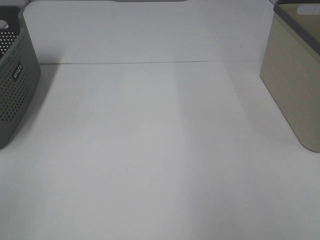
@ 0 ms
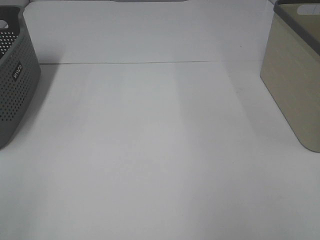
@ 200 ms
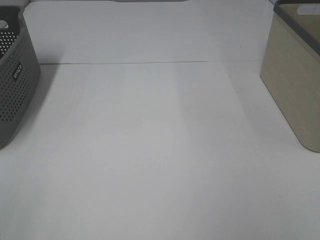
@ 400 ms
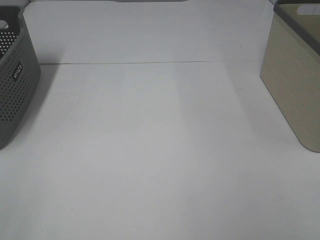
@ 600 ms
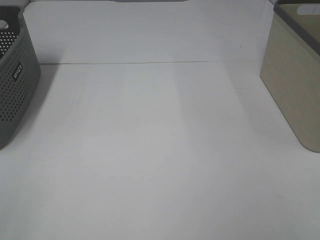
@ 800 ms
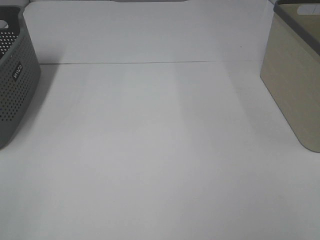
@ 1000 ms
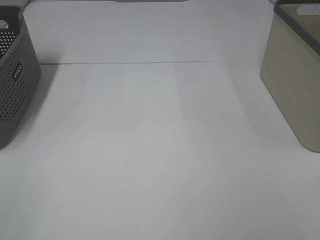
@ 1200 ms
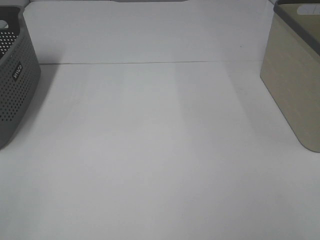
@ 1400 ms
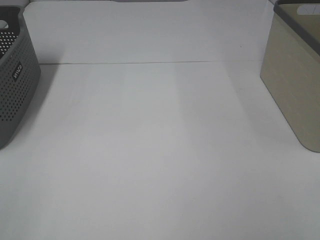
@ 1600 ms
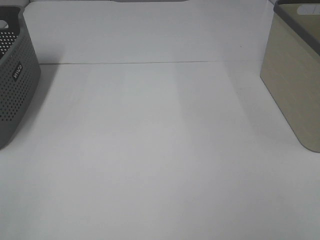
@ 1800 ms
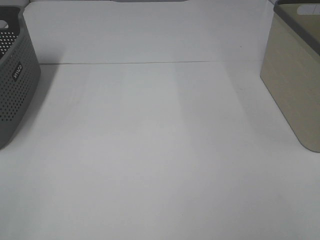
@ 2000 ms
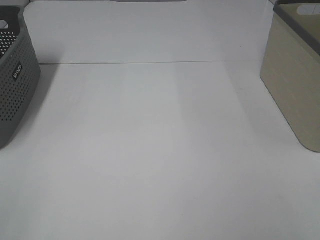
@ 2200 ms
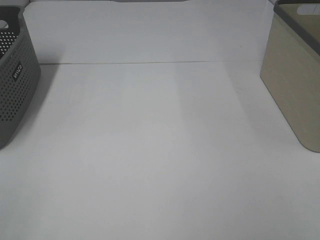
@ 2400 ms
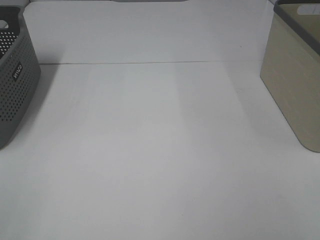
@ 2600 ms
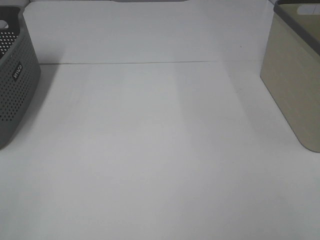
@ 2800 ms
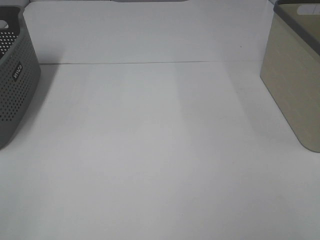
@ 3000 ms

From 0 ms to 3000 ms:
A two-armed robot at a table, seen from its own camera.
From 1600 ms to 3000 ms: Both grippers stay about where they are.

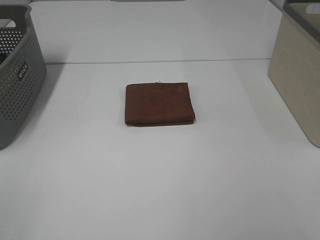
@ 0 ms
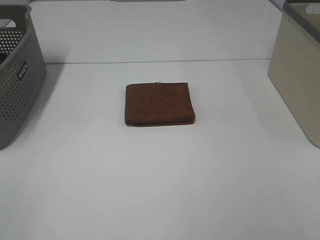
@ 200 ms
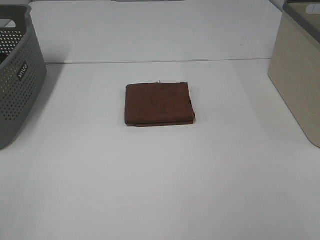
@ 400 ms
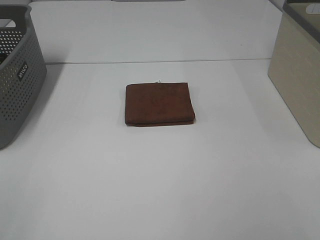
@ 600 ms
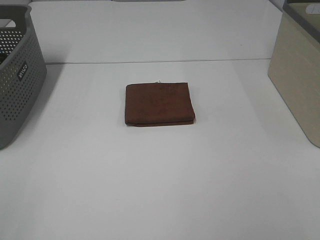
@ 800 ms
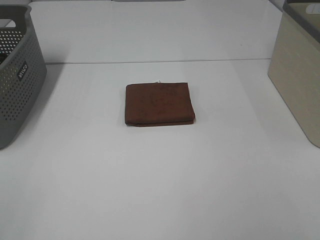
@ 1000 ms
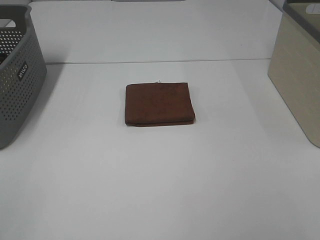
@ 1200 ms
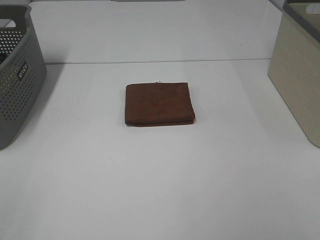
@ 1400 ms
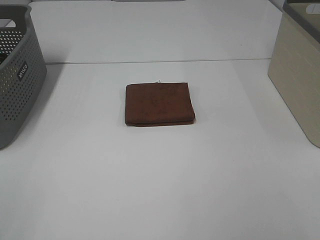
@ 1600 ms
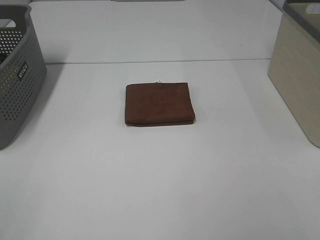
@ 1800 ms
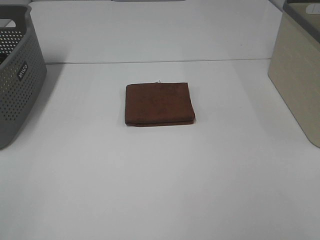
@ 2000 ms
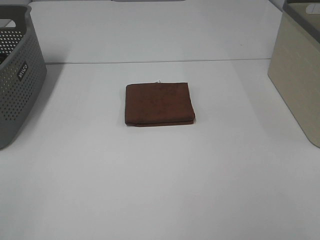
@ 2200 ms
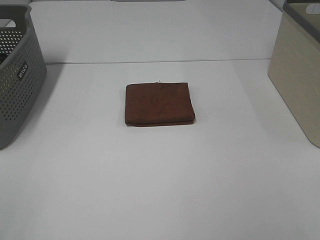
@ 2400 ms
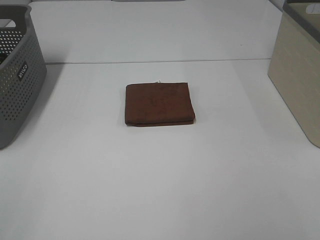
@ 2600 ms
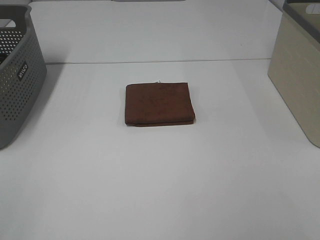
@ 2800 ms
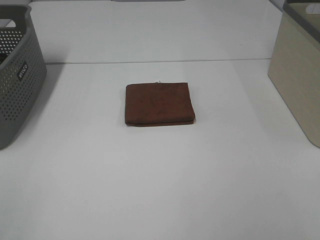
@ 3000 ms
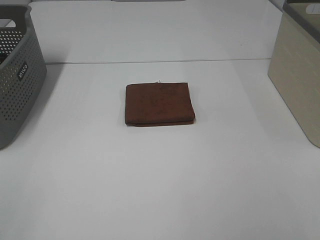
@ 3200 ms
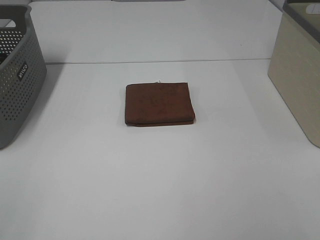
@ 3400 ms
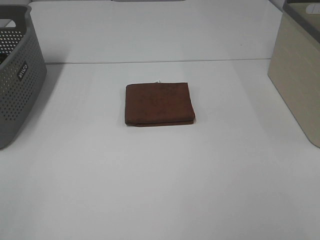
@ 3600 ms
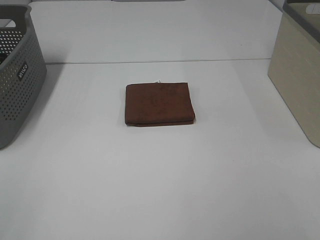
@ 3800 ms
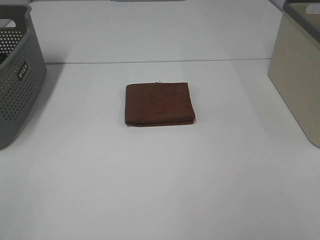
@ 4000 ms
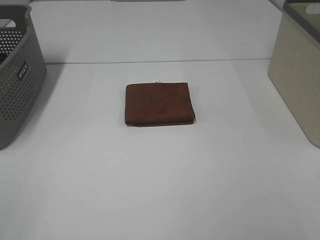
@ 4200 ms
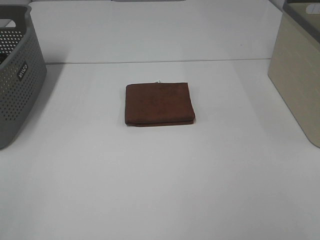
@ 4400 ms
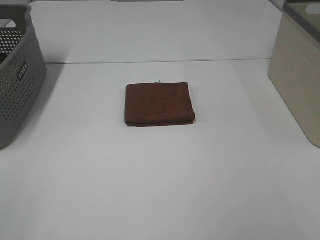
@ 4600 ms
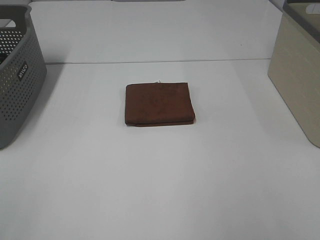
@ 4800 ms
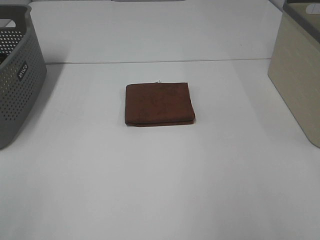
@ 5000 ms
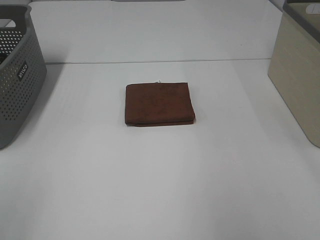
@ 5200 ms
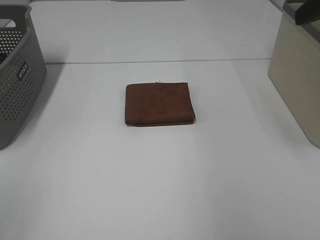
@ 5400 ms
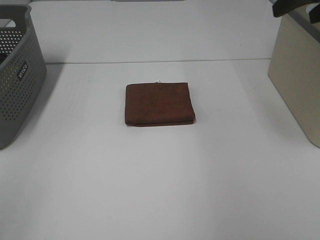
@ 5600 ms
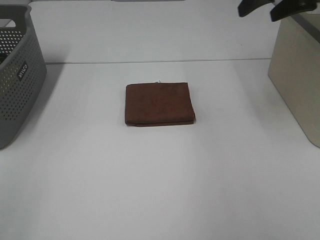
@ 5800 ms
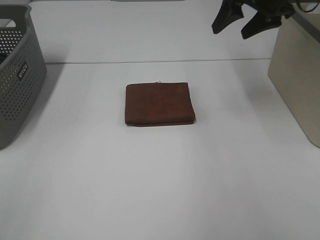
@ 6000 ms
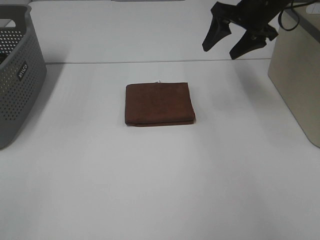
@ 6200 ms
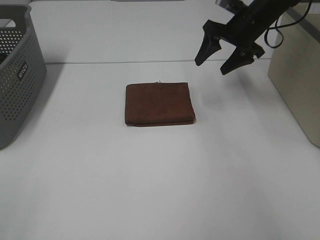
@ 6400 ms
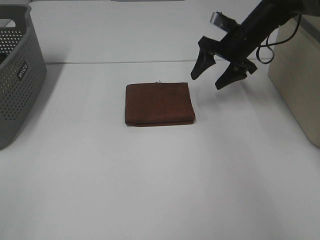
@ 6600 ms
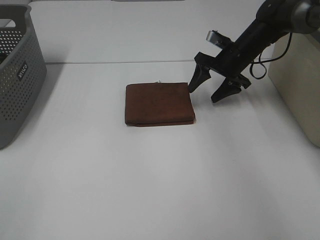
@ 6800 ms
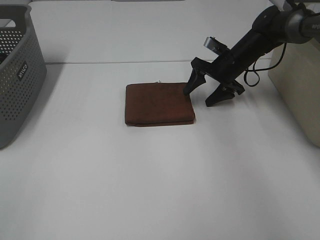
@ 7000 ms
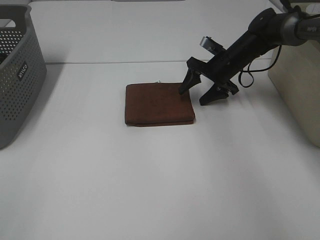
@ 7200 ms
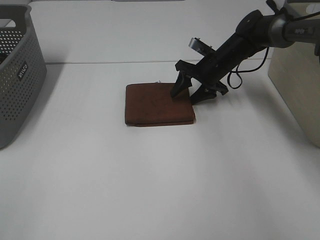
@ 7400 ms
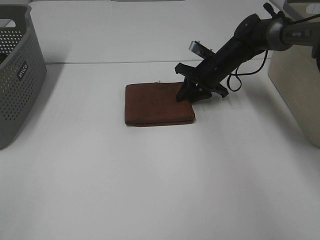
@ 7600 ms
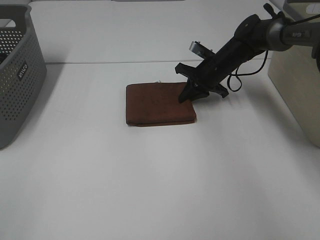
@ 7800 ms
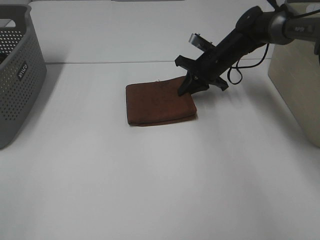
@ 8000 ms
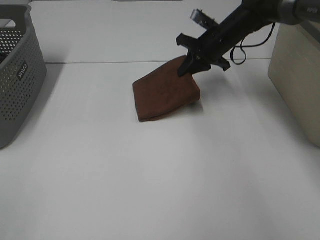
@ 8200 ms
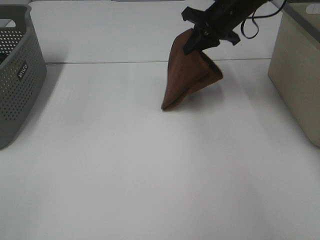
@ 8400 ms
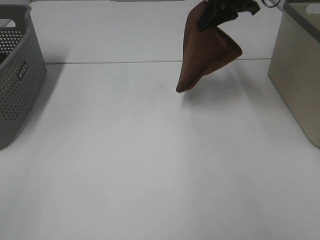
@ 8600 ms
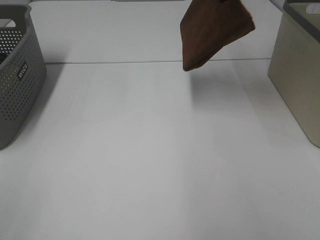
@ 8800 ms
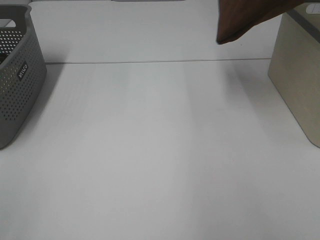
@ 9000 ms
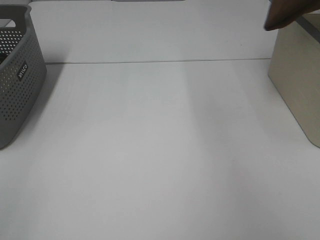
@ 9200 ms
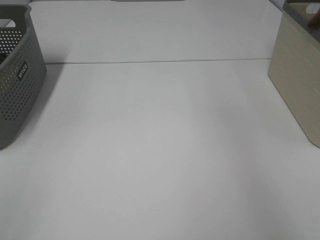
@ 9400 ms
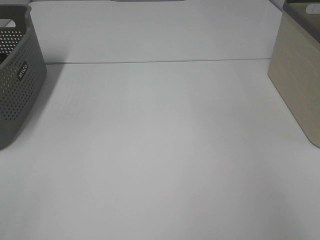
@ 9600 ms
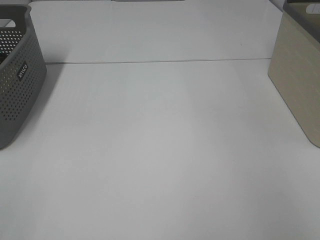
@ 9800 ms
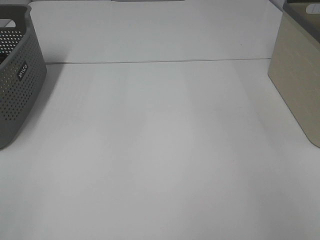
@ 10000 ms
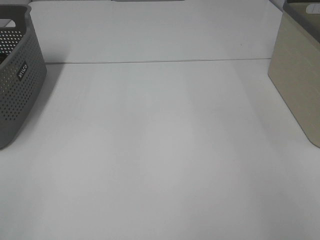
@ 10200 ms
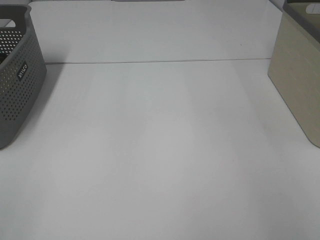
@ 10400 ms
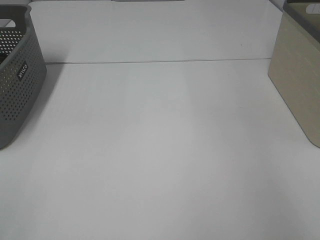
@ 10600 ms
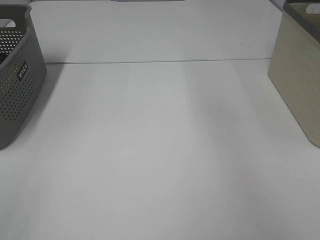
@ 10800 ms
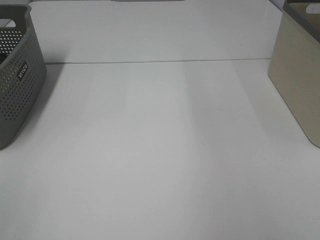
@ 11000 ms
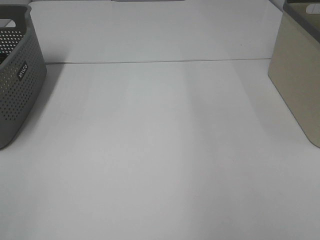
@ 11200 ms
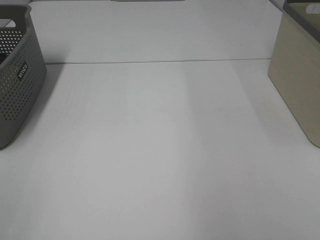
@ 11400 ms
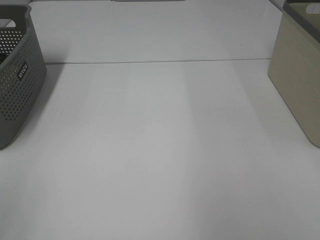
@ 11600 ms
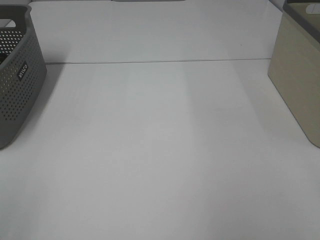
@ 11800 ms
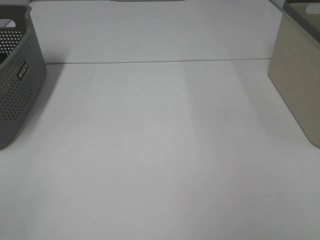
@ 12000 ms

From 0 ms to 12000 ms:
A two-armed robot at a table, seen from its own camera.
Step, from 0 ms to 7800 ms: Right hand: grab the folded brown towel.
Step, from 8000 ms to 10400 ms: Right hand: place the brown towel in right basket.
From 0 ms to 4400 ms: Neither gripper changes place.
From 4400 ms to 6000 ms: The right gripper heads forward, covering approximately 40 cm.
From 6000 ms to 7600 ms: The right gripper travels downward by approximately 20 cm, and closes up.
From 7600 ms to 9000 ms: The right gripper shifts approximately 35 cm upward.
From 9000 ms to 10400 ms: The right gripper goes approximately 20 cm to the right and downward, and opens.

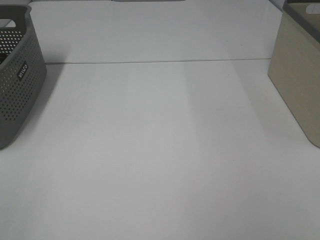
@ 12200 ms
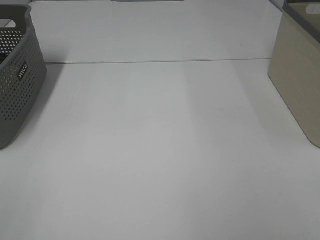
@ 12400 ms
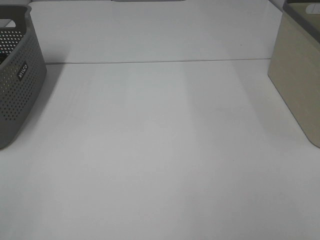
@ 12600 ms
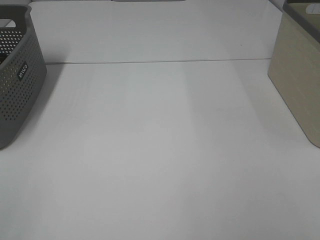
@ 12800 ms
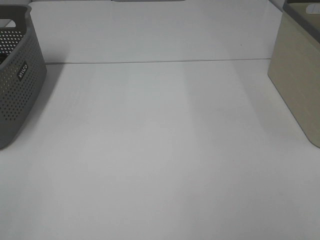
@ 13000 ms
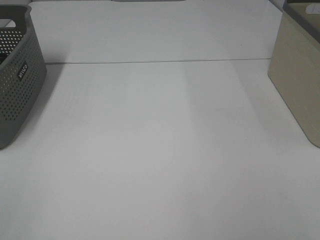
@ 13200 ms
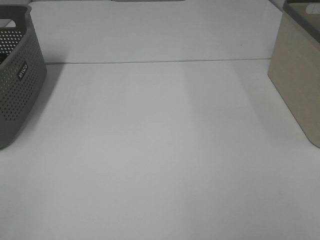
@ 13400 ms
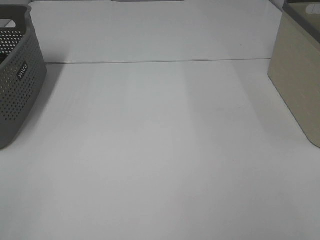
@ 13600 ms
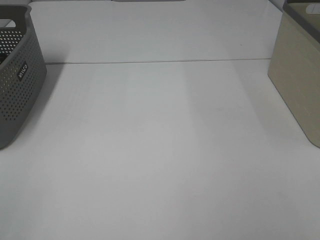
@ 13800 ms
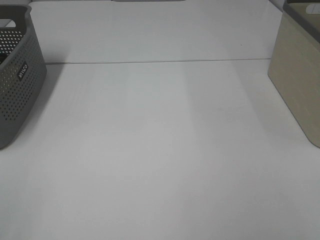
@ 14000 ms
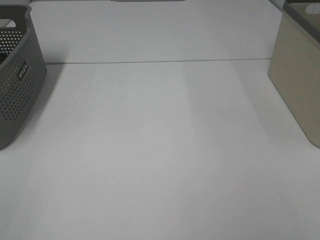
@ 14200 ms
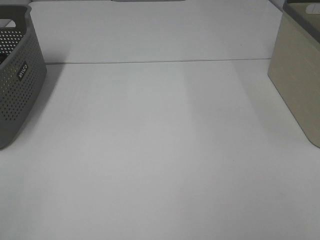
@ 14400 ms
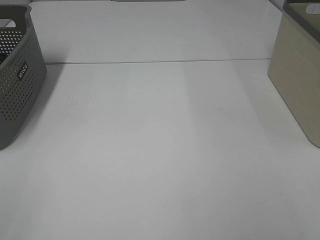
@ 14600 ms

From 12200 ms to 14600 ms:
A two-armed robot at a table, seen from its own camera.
From 13400 ms to 14600 ms: Neither gripper changes place.
